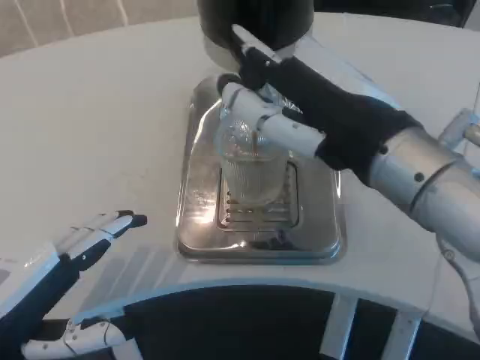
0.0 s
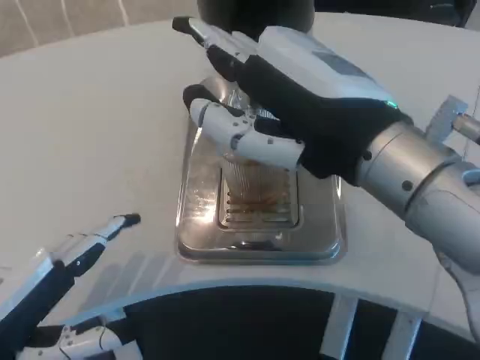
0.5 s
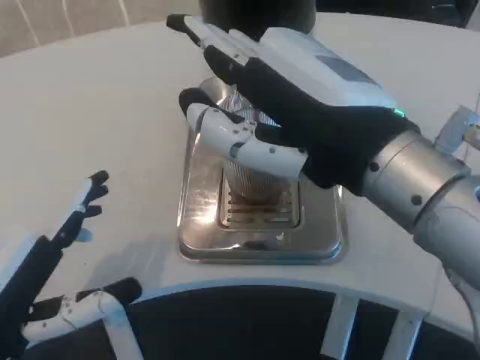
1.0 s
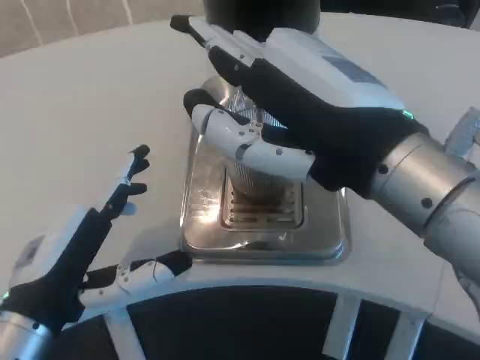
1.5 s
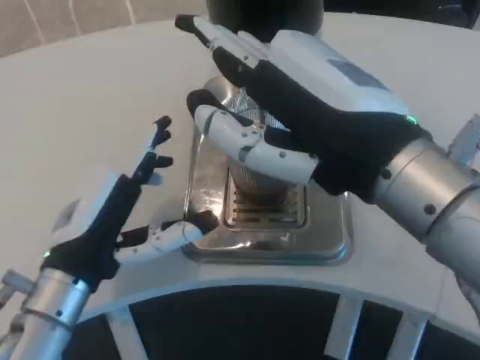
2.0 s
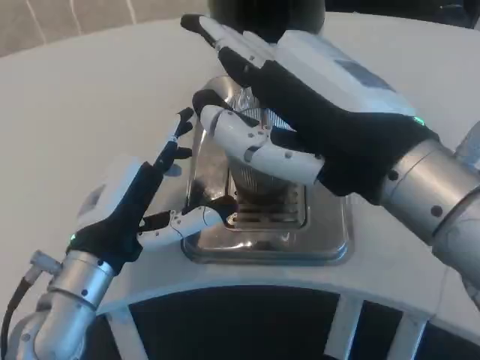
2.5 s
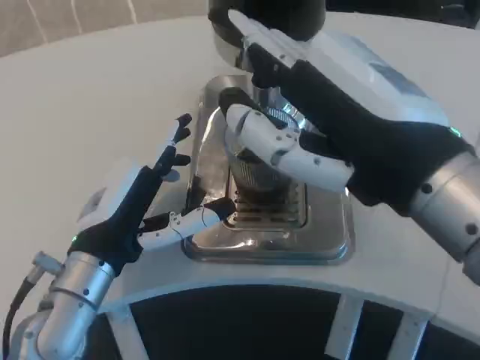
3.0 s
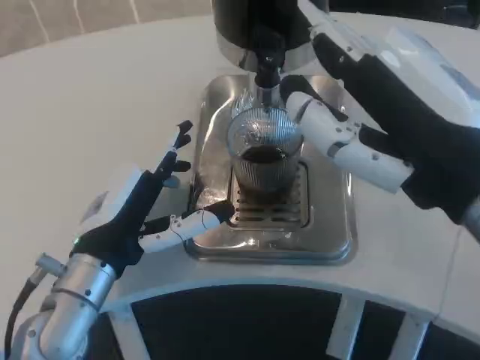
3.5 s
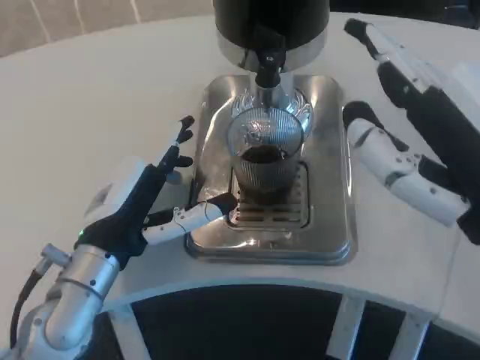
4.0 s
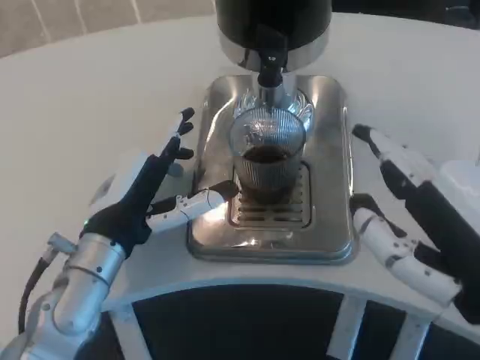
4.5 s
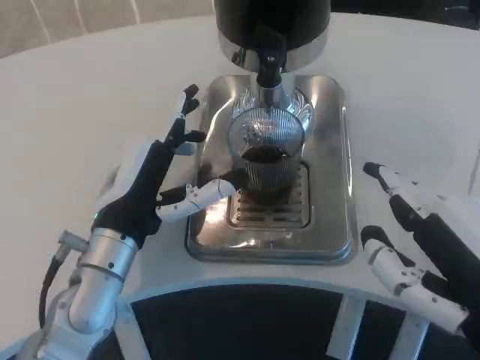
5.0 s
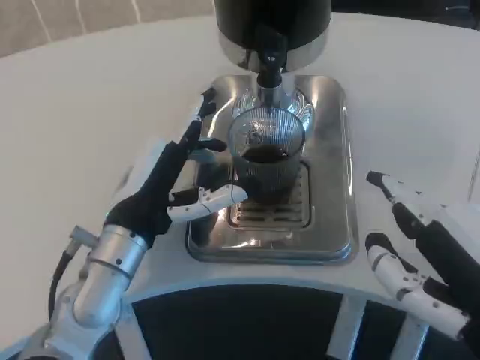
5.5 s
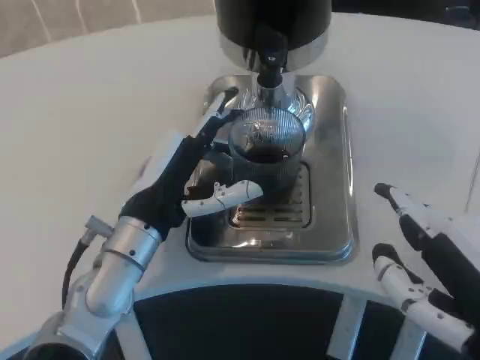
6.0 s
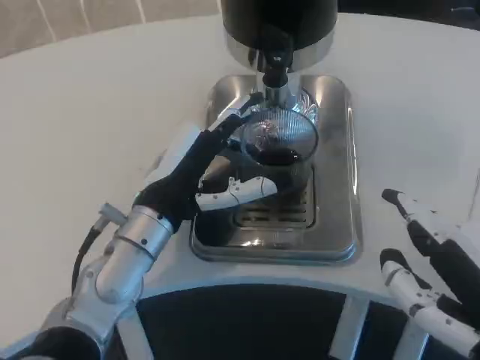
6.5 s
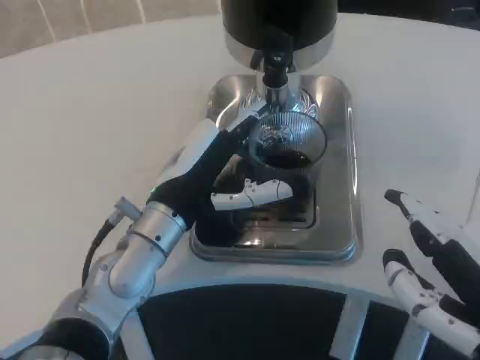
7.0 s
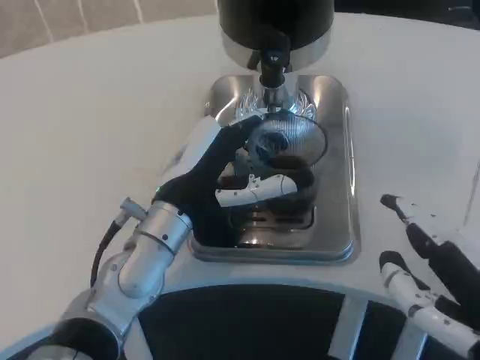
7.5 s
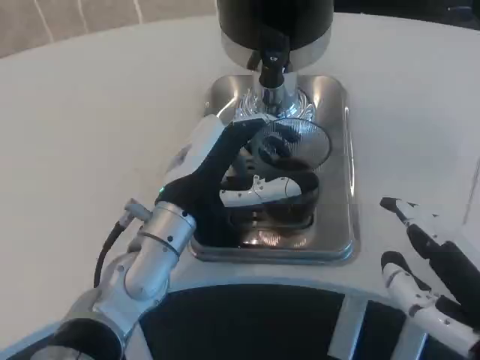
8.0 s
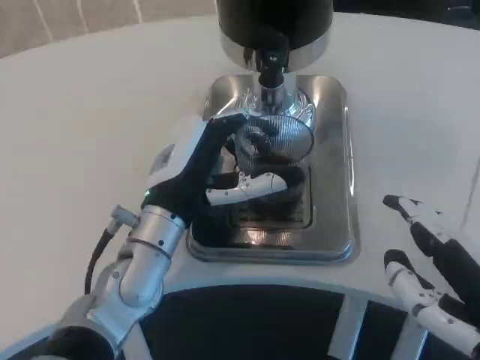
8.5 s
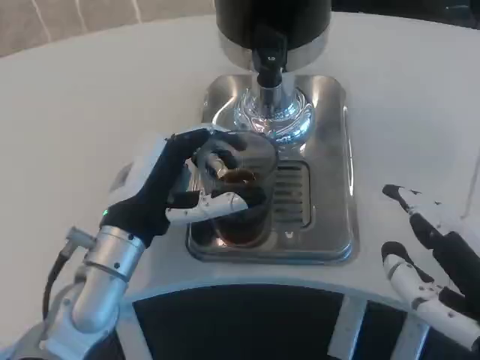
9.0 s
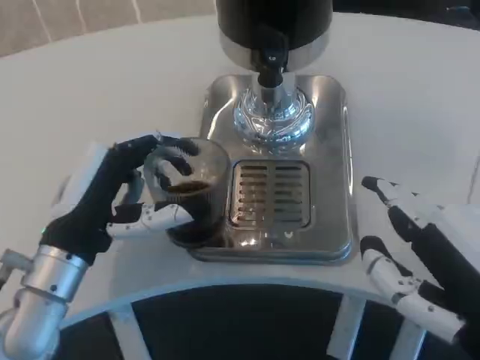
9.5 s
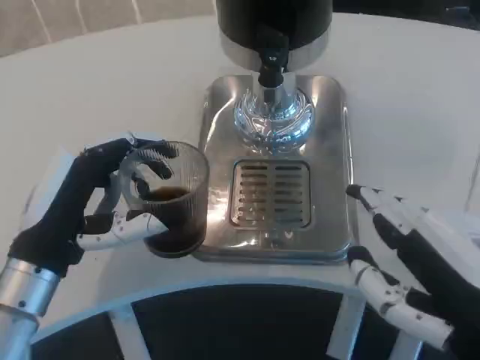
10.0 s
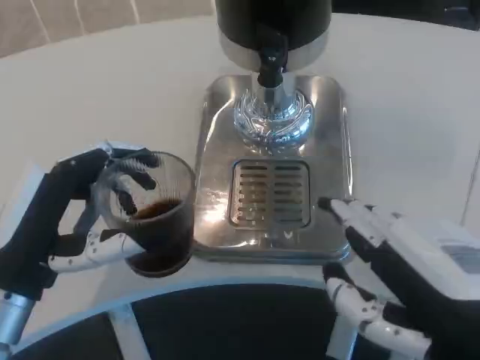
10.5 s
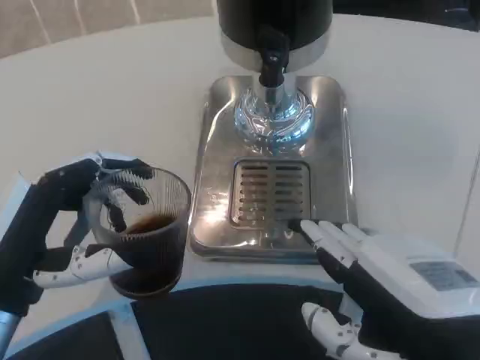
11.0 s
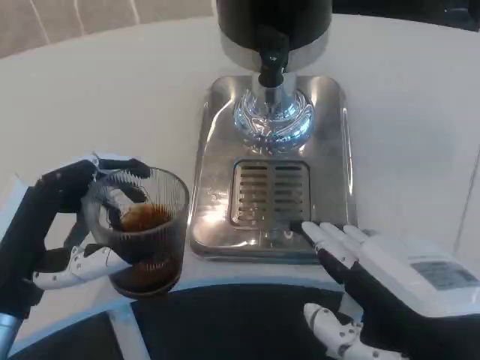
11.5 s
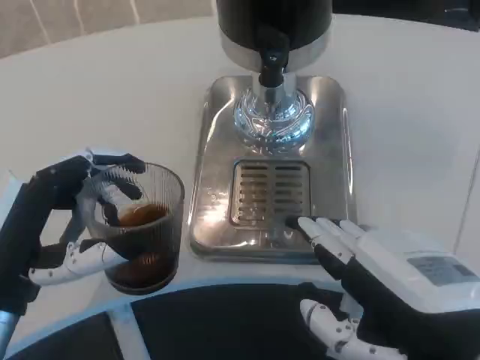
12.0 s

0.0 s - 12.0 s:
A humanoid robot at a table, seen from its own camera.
Task of the whole recording: Grasp the cup under the faucet to collect the drink, then remove the cup.
0.0 s - 2.0 s: The left hand shifts about 10 cm to the right and forward.
2.0 s - 4.0 s: The right hand travels to the right by roughly 5 cm.
4.0 s - 6.0 s: The right hand is displaced downward by some 5 cm.
6.0 s - 8.0 s: The hands move only a little.
8.0 s - 10.0 s: The left hand shifts approximately 15 cm to the left and backward.
